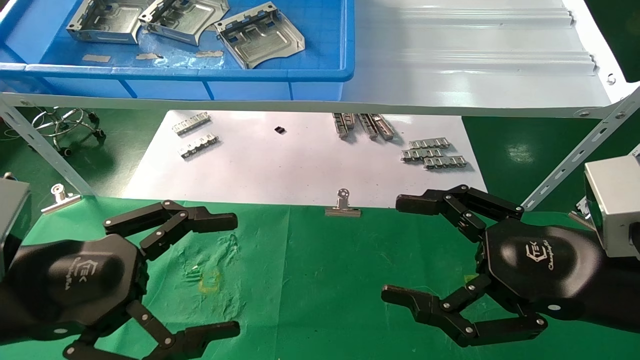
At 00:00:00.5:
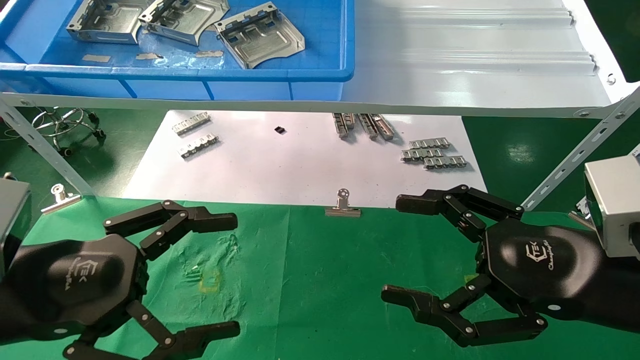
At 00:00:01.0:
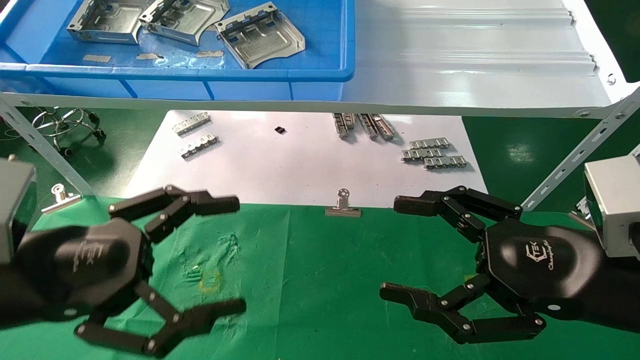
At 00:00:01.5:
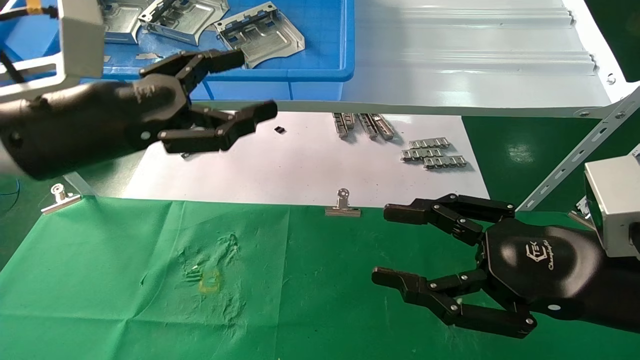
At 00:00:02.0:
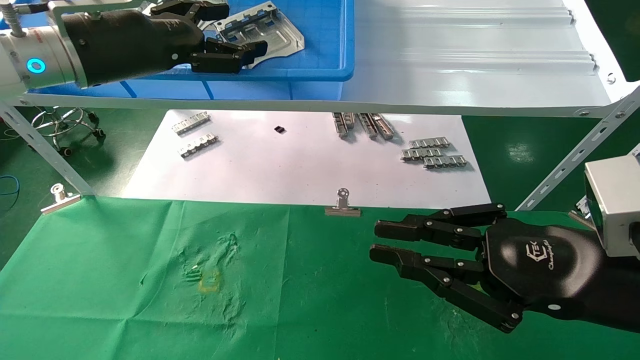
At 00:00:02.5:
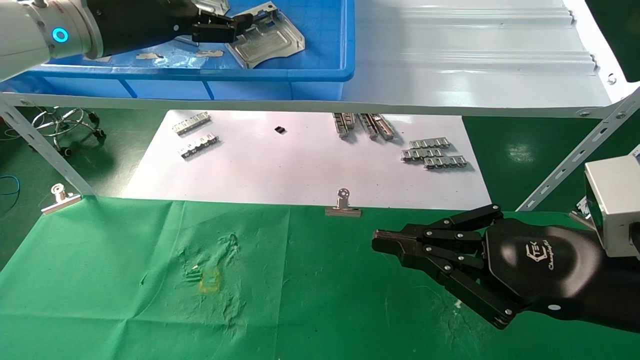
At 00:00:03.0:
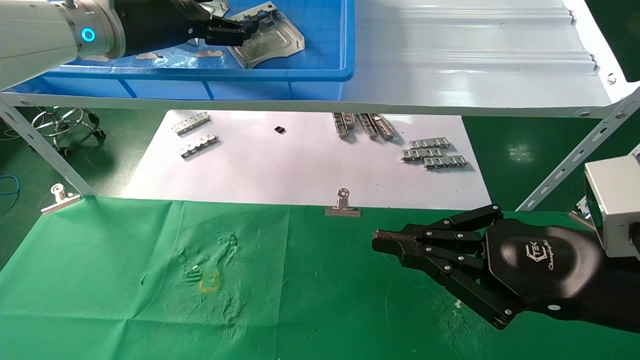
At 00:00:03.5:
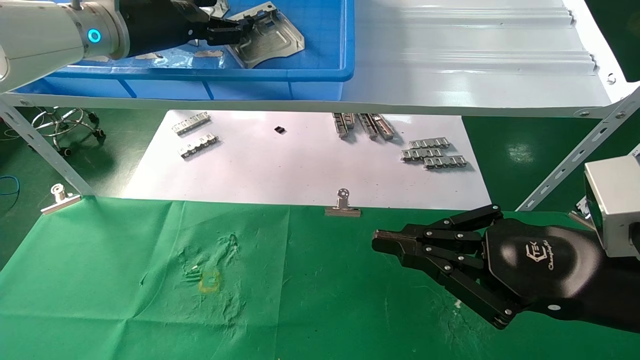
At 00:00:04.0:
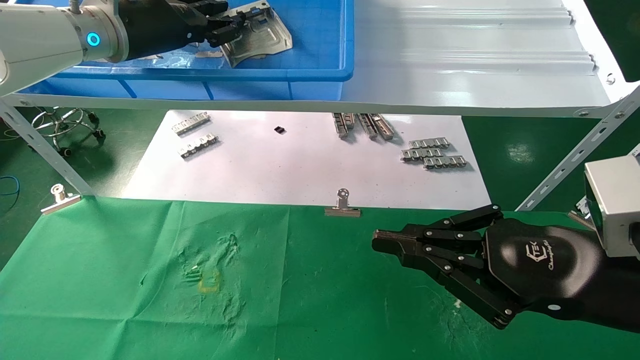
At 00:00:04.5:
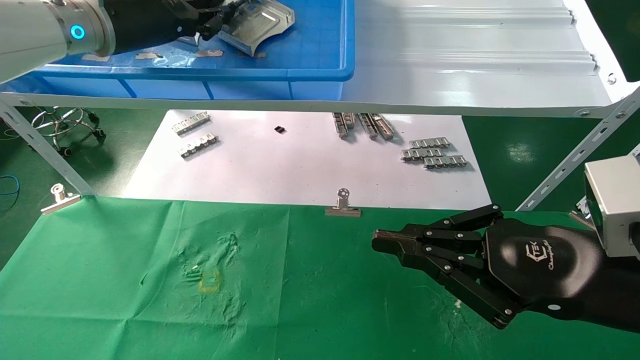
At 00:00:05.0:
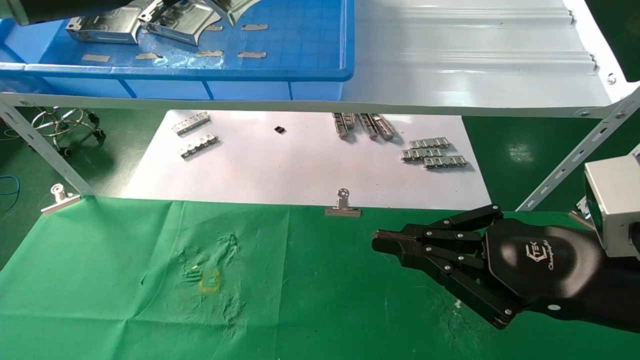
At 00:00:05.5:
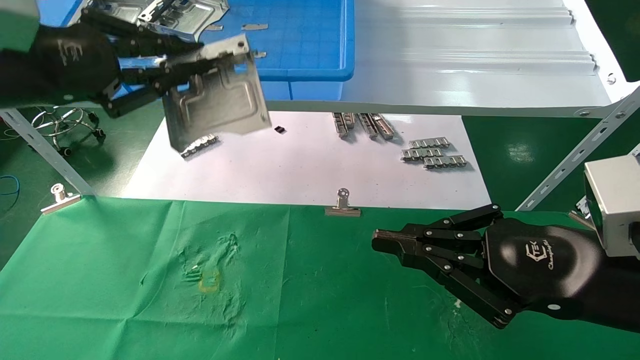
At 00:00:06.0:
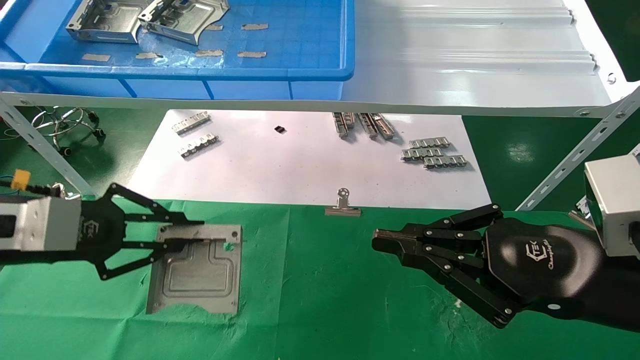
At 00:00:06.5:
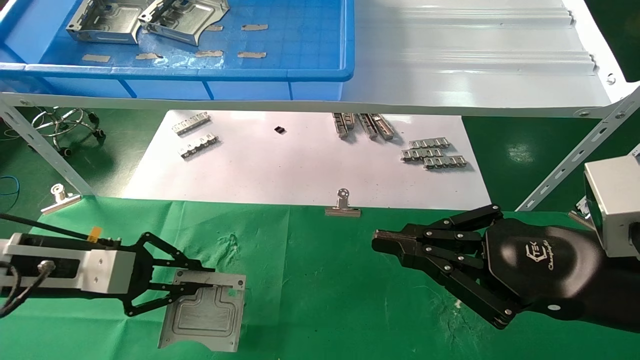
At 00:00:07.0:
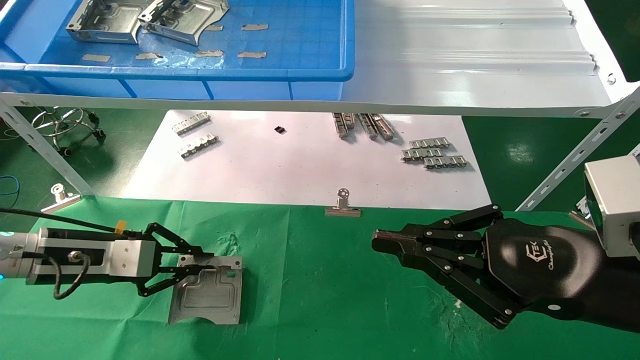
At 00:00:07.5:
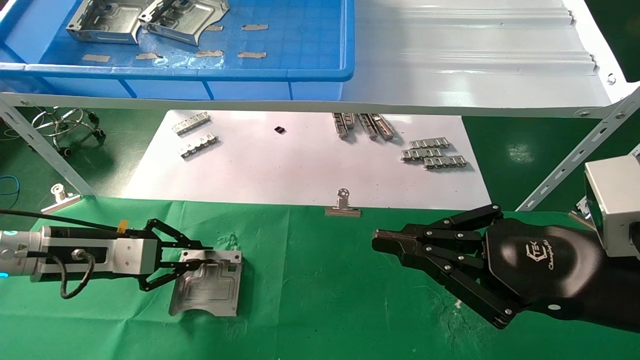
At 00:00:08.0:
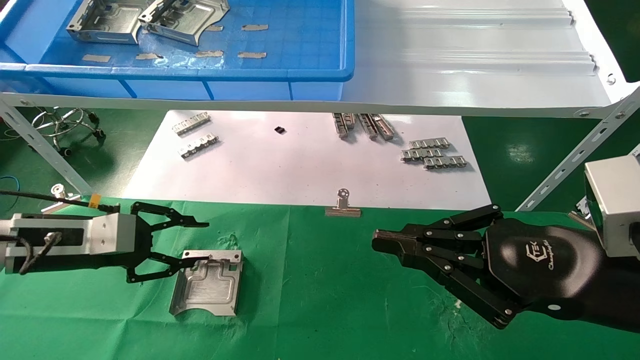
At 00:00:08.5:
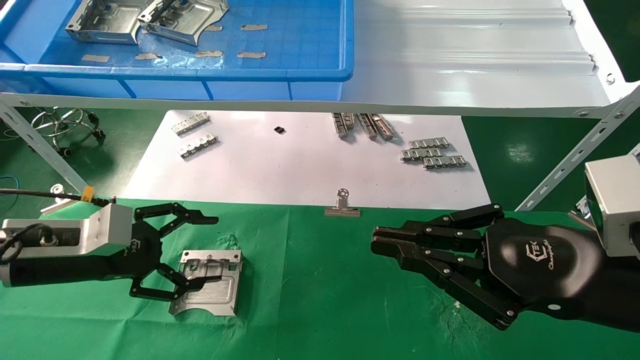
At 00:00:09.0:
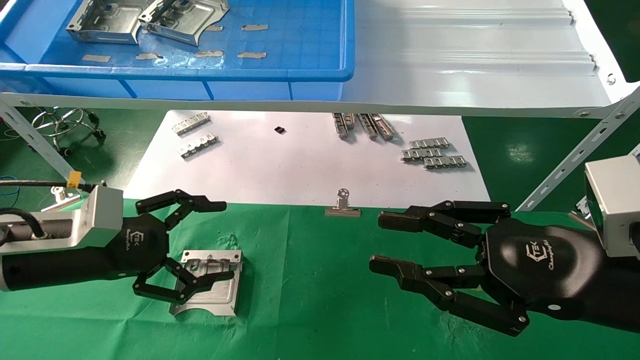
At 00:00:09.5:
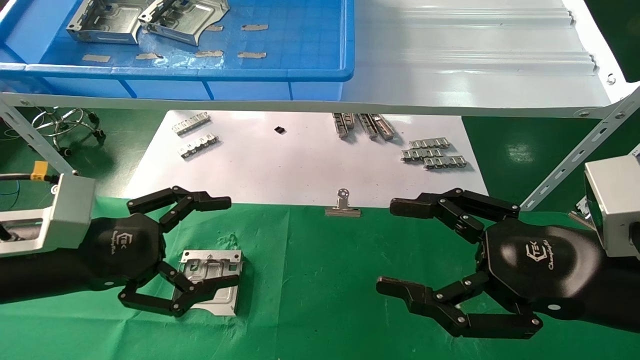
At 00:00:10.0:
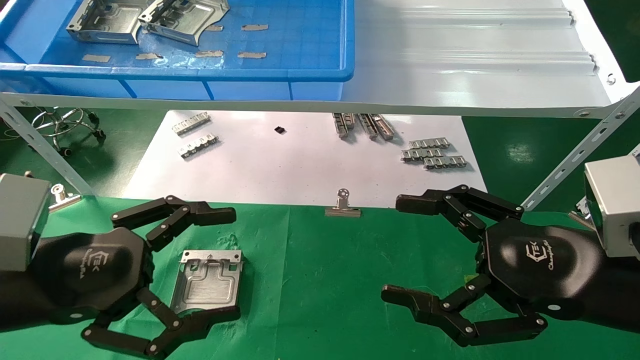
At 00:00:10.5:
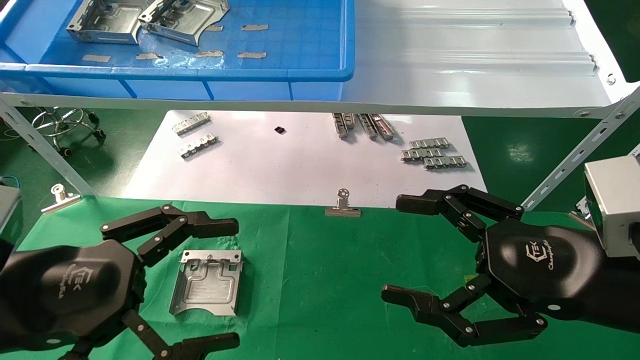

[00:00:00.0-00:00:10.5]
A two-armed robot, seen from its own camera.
Task of the whole recording: use the mechanical arm to pick up the parts and place them on the table.
Step, 00:00:01.5 to 00:00:04.0: Pick up the hard drive bracket from the feeding area.
Step, 00:00:04.5 to 00:00:07.5: Place the hard drive bracket into the box.
00:00:00.0 to 00:00:02.0: The left gripper goes about 25 cm forward and upward, while the right gripper closes up.
00:00:02.0 to 00:00:04.0: The left gripper travels forward by some 5 cm, and closes up.
00:00:04.0 to 00:00:06.5: The left gripper travels downward, backward and to the left by approximately 30 cm, and closes.
00:00:06.5 to 00:00:08.5: The left gripper opens up.
00:00:08.5 to 00:00:10.5: The left gripper is displaced backward and to the right by some 15 cm, while the right gripper opens its fingers.
